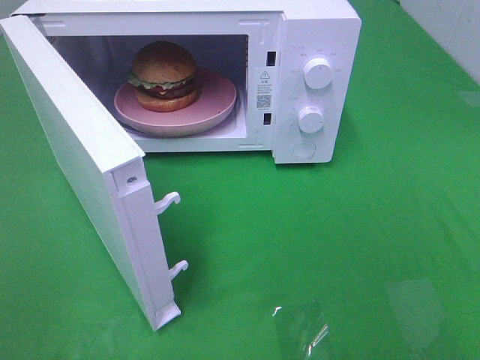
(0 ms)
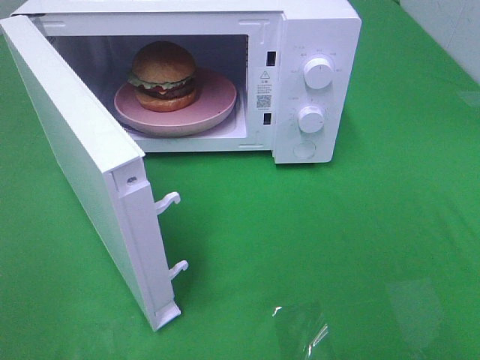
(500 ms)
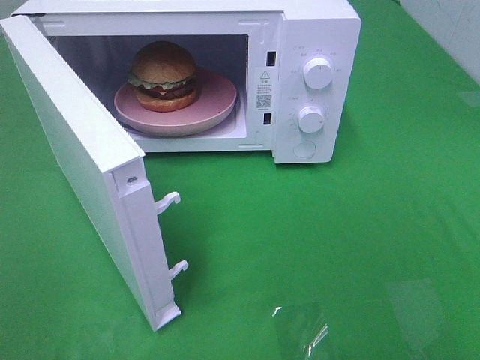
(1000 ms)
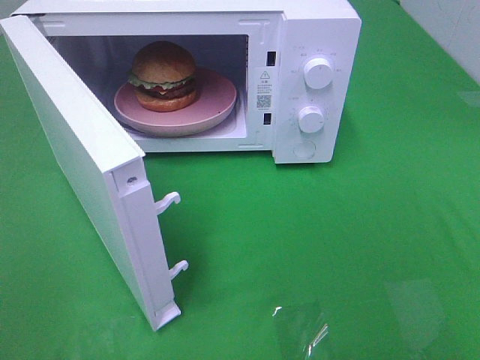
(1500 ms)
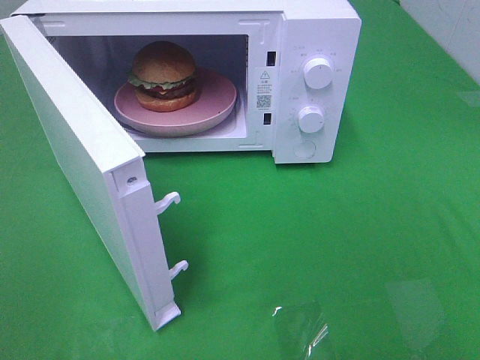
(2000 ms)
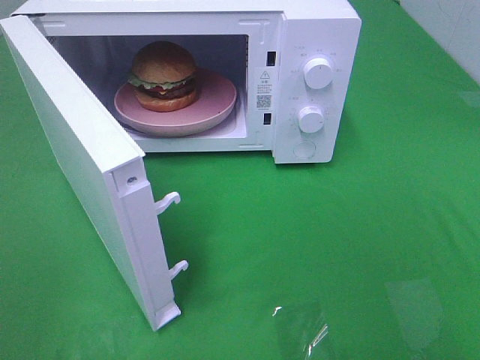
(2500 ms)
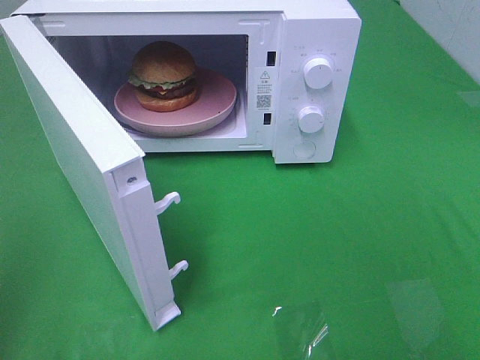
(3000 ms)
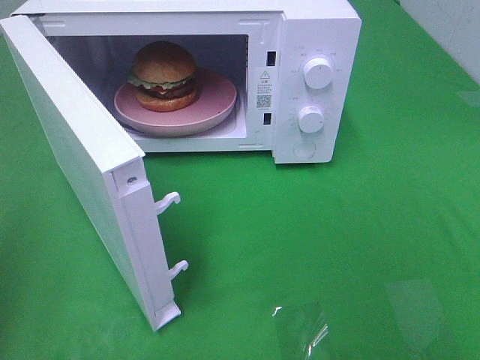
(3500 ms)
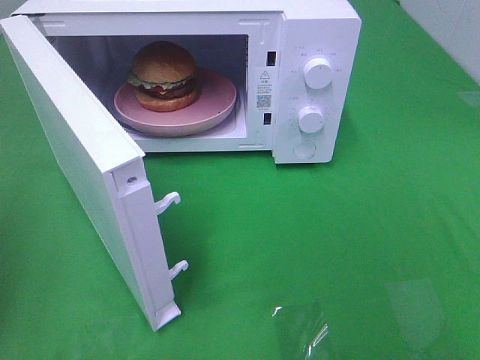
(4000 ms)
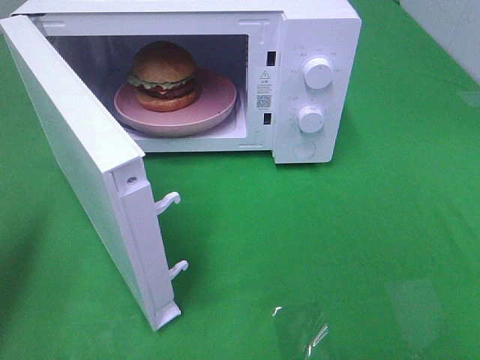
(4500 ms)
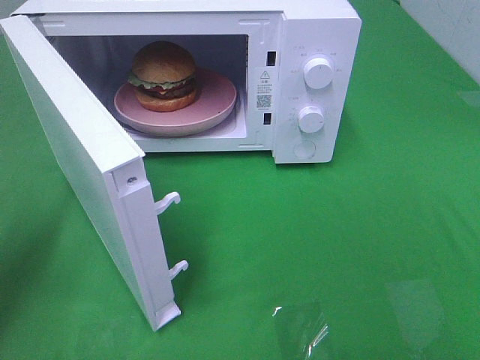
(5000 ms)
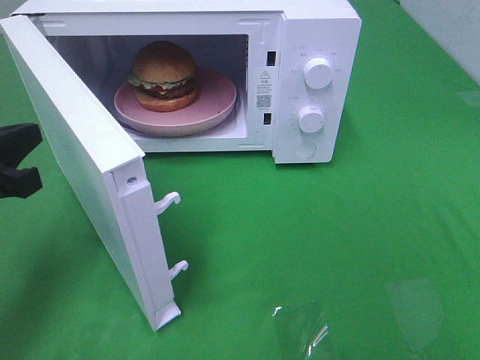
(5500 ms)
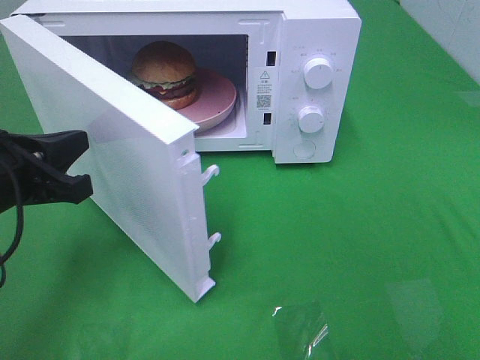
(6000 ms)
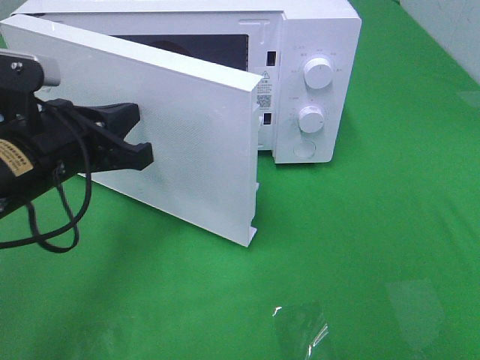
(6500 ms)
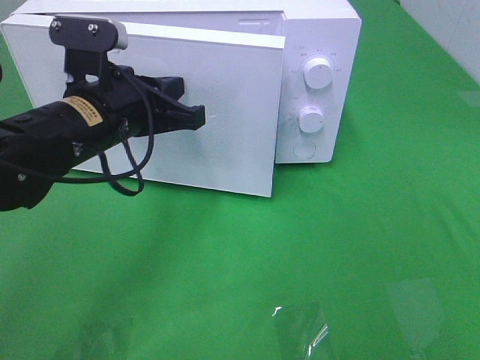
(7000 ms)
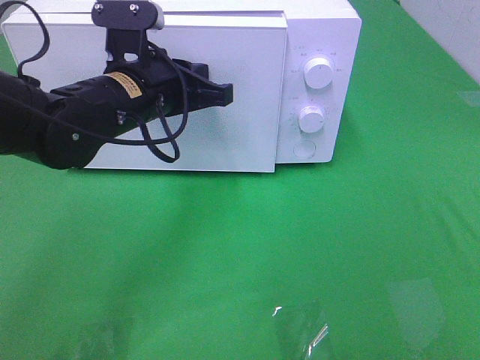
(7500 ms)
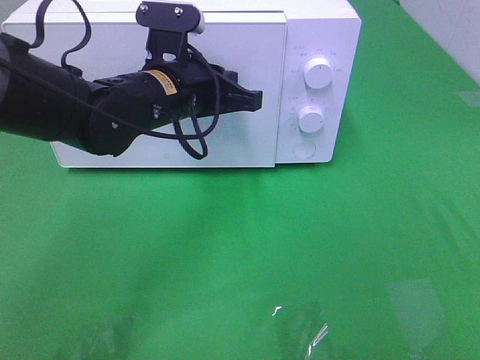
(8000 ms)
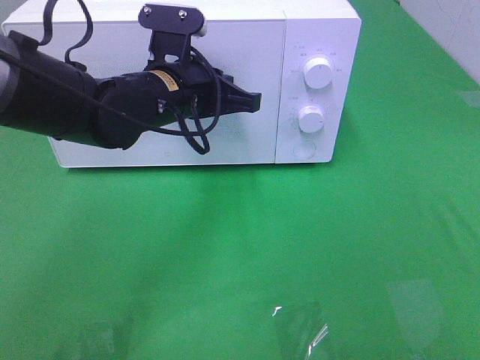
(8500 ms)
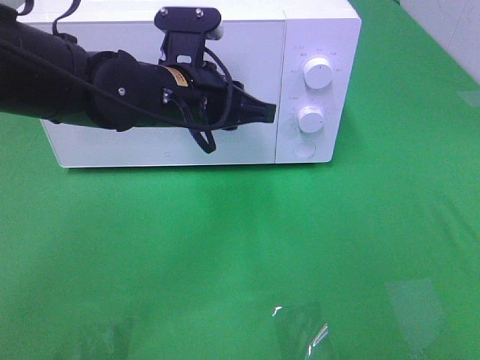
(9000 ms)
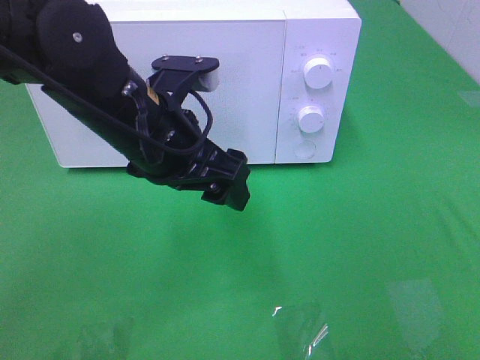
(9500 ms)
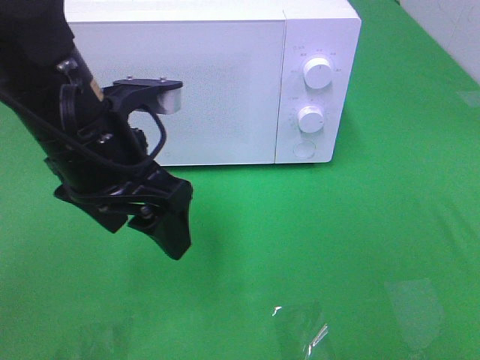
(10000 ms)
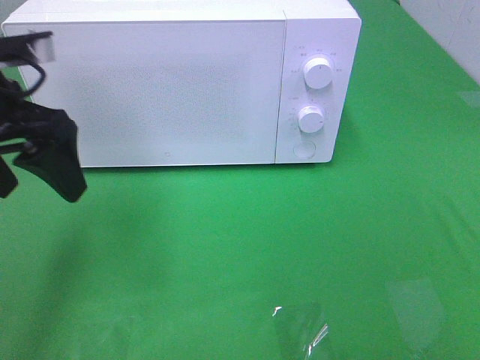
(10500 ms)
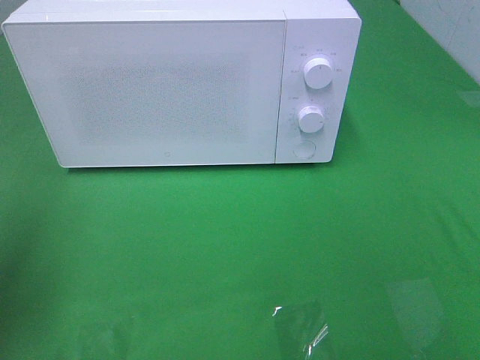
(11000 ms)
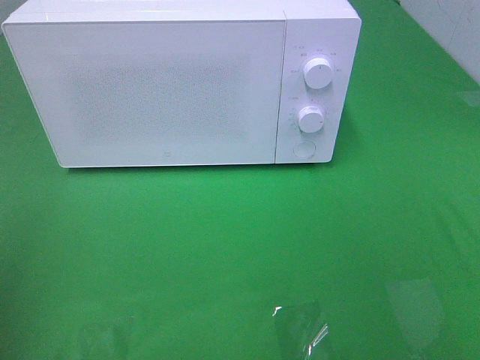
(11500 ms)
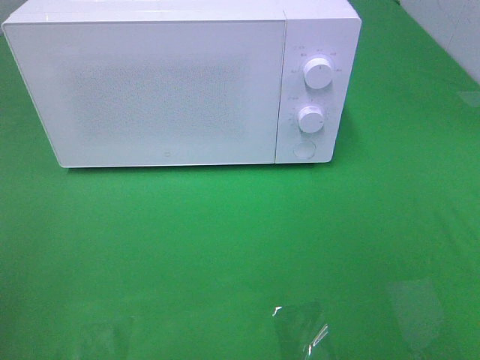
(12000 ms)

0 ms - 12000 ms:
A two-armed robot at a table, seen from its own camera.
Task of the whole recording: Heat the burger.
Step, 0 ms - 9500 ms: Left hand: close the microwave door.
0 ms - 2000 ms: Neither gripper changes place.
4000 ms - 6000 ms: The left gripper is displaced to the right, downward and forward by approximately 15 cm.
6000 ms - 8000 ms: The left gripper goes approximately 20 cm to the right and forward.
8000 ms - 10000 ms: The left gripper goes about 10 cm backward, and opens up.
10000 ms - 12000 ms: The left gripper moves to the left and backward, approximately 25 cm.

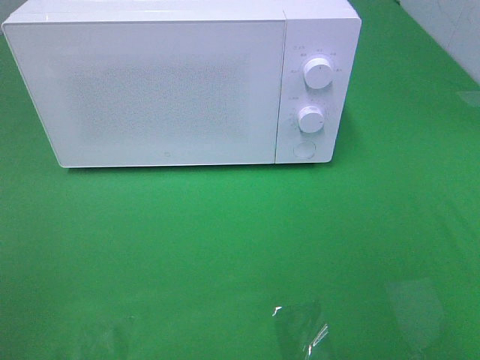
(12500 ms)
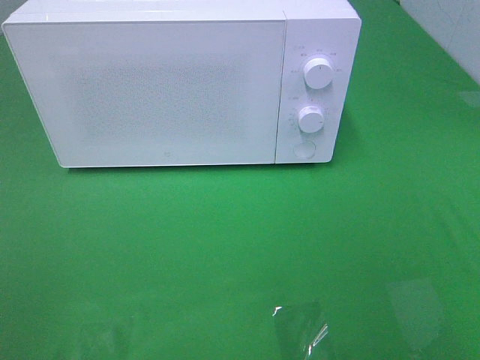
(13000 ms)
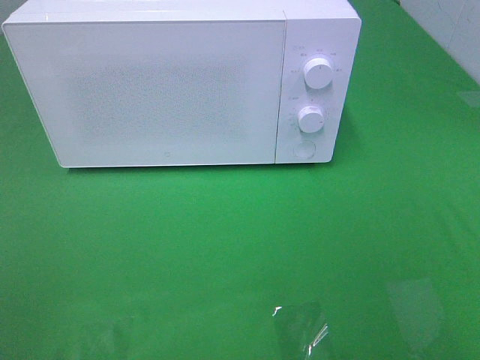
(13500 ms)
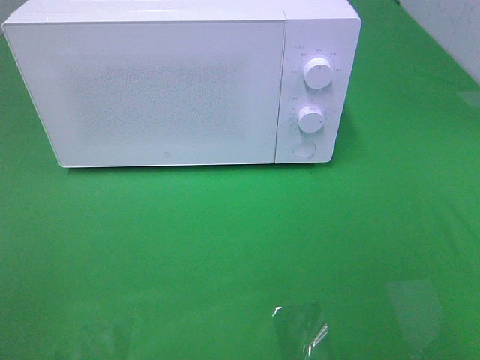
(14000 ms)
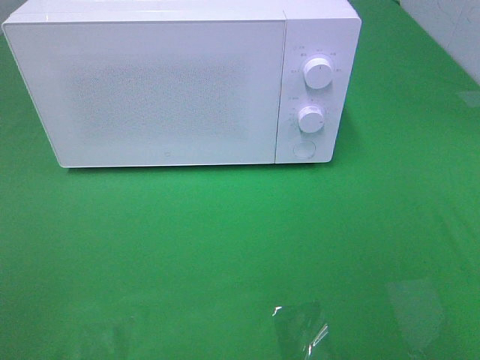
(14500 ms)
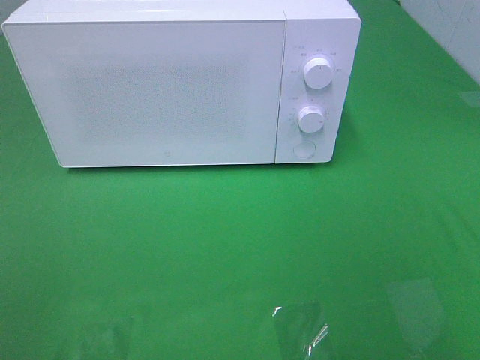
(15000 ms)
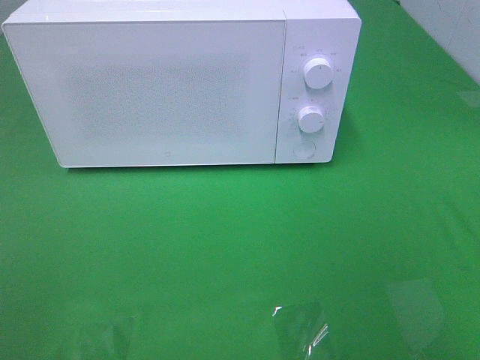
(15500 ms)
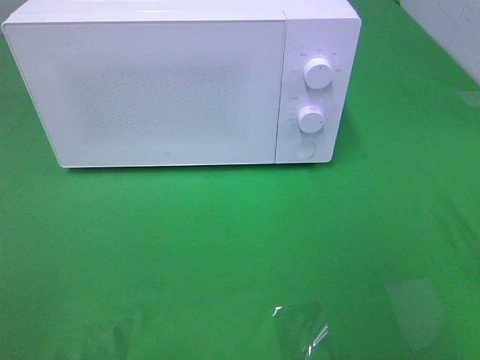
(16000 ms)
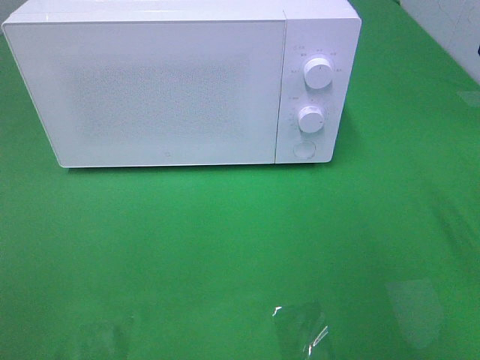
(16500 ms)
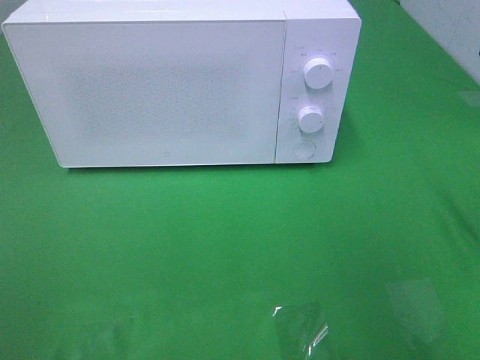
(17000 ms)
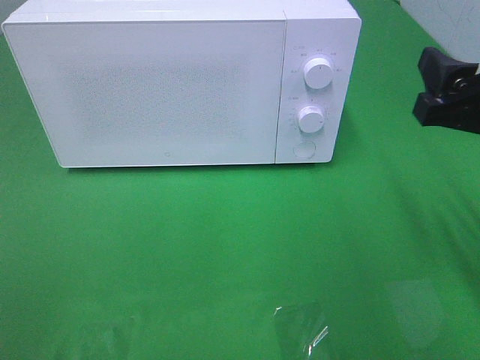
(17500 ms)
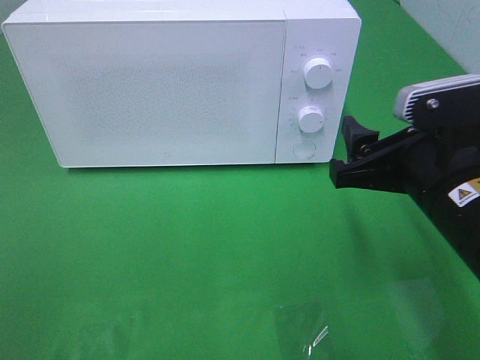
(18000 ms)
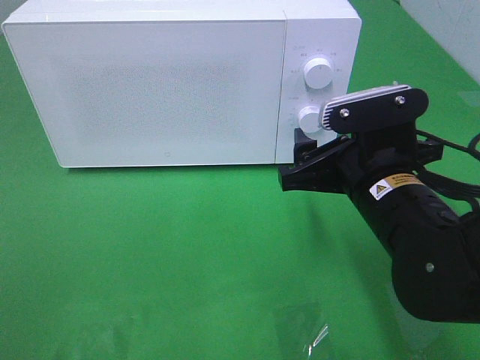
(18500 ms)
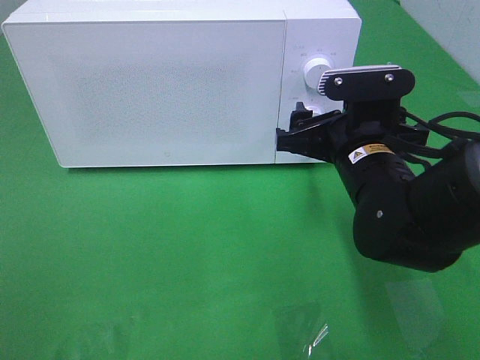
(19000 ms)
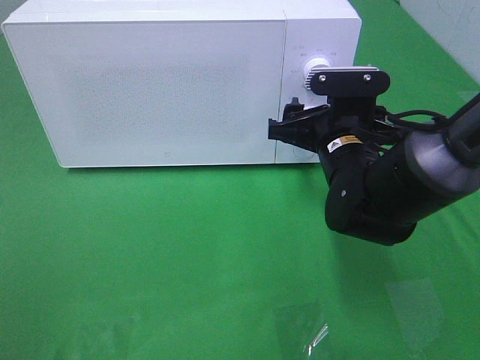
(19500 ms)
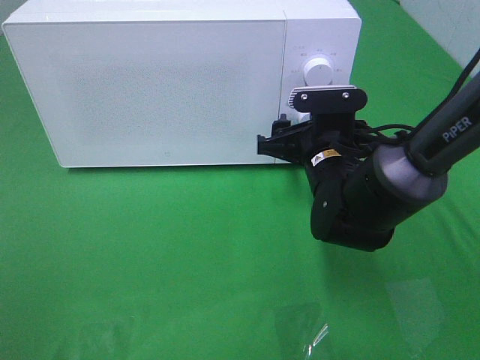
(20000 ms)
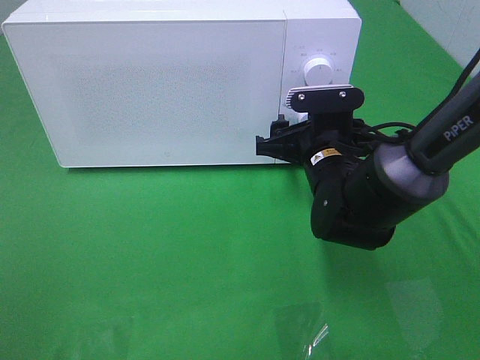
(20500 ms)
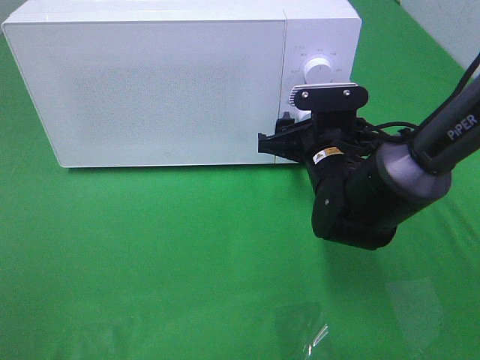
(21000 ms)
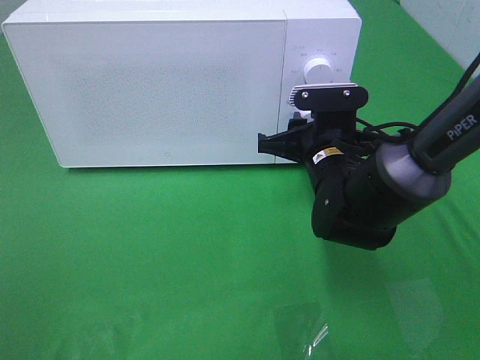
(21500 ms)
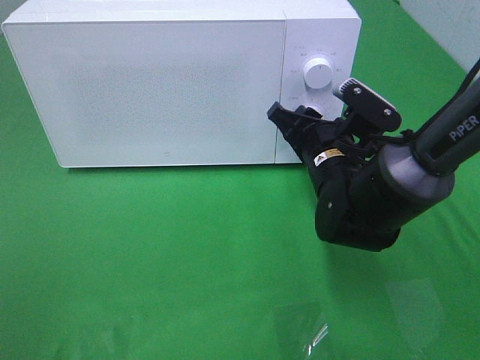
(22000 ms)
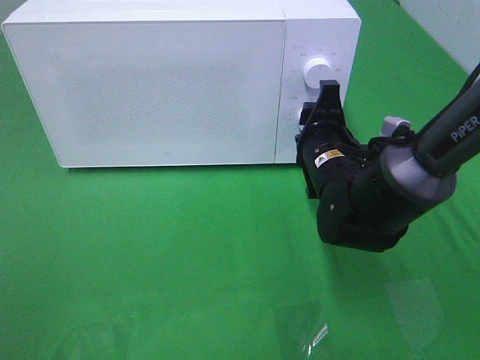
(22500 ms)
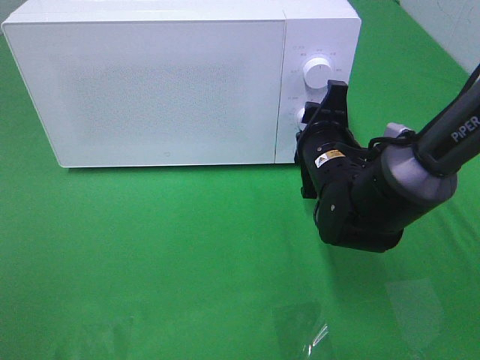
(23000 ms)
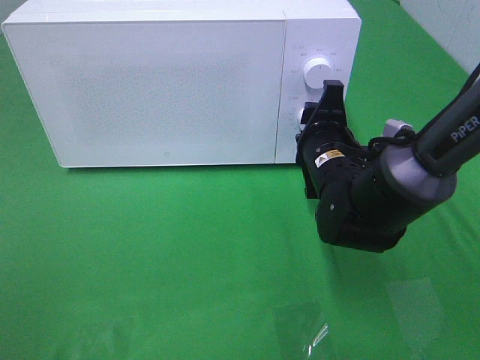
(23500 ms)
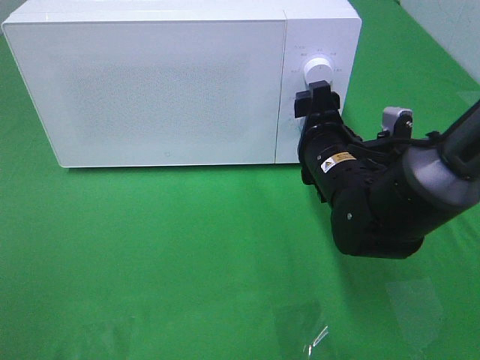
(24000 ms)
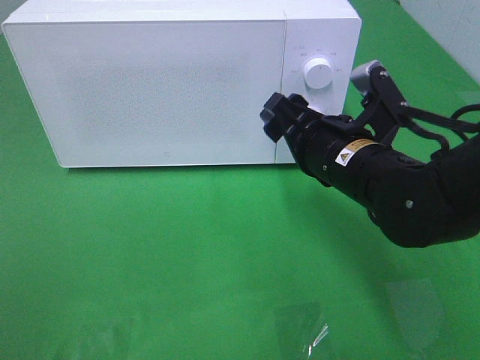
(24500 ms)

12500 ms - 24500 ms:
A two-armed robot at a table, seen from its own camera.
Task of the whole recording: Heat the burger.
Step, 12500 ms - 23500 ms: Right hand: twist timer button.
16500 ms - 18500 ms: The right gripper heads to the left and downward, covering approximately 20 cm.
18500 ms - 20500 ms: The right gripper is displaced forward and downward by about 10 cm.
20500 ms - 22500 ms: The right gripper closes its fingers.
22500 ms - 24500 ms: The right gripper moves some 5 cm, and opens its fingers.

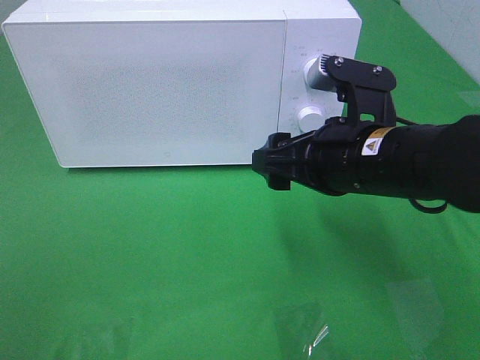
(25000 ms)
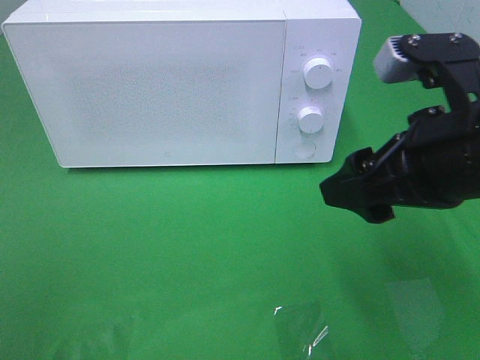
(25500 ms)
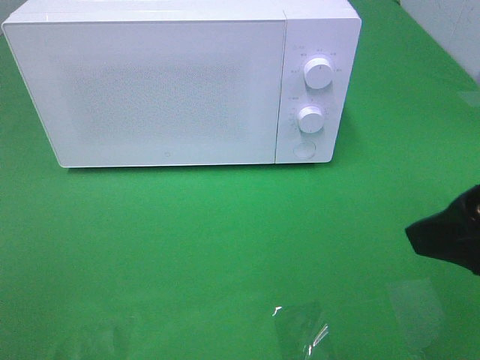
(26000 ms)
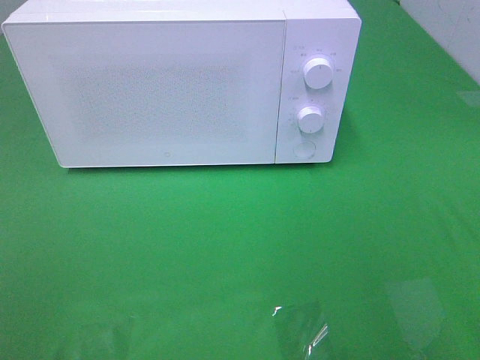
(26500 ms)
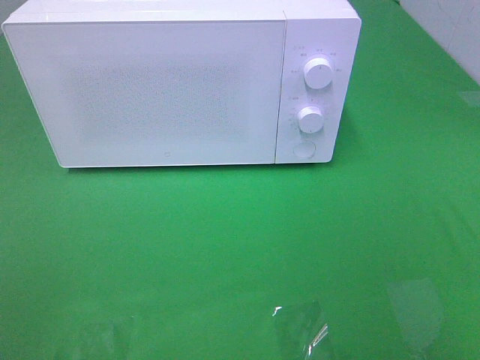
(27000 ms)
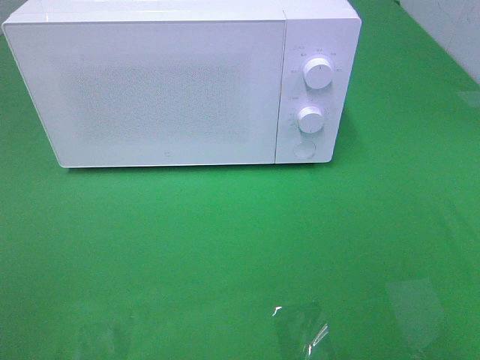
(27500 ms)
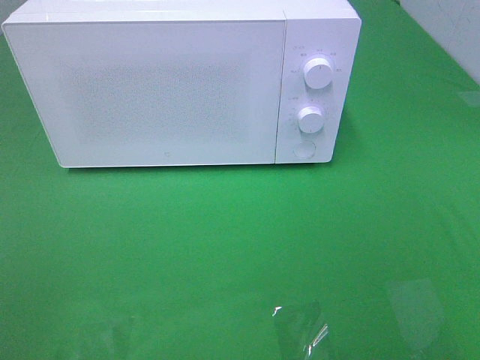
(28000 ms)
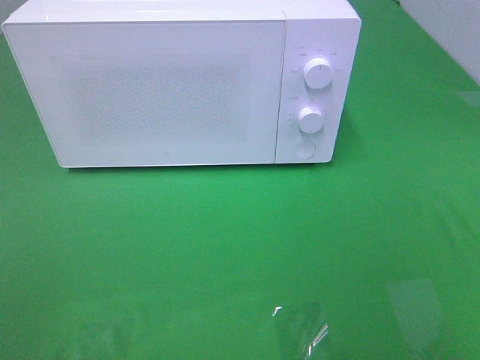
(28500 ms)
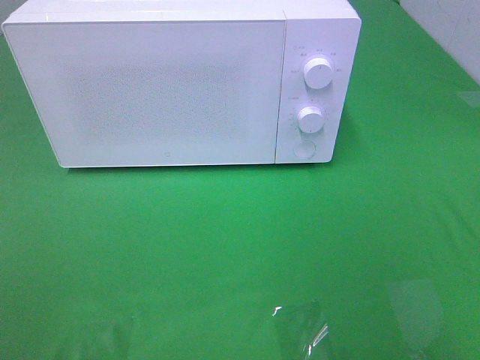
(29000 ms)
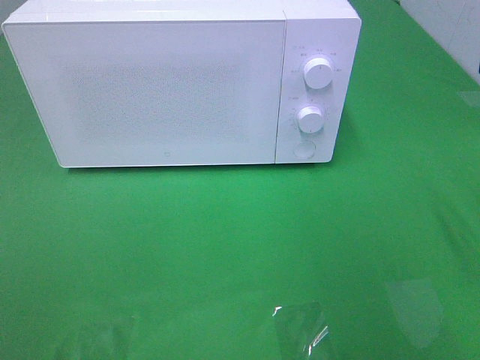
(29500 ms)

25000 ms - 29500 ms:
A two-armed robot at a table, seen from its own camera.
Task of the whole recording: Heat the burger.
25000 ms - 27000 ms: The right gripper heads backward, to the right and upward, covering roughly 30 cm.
